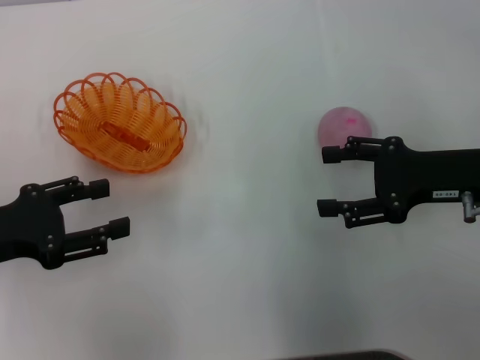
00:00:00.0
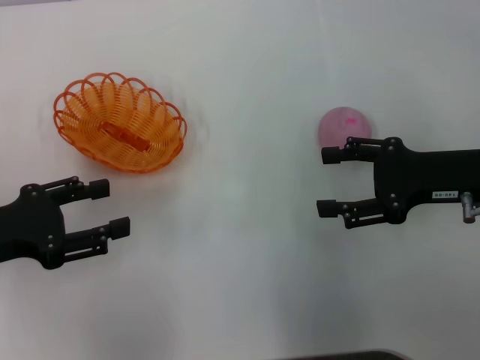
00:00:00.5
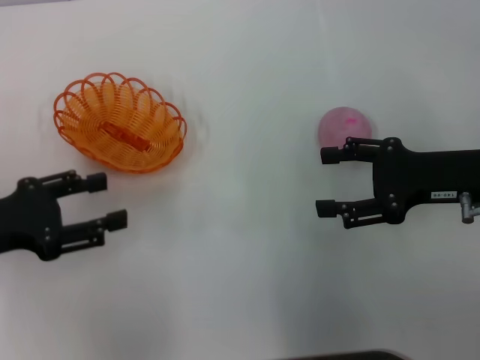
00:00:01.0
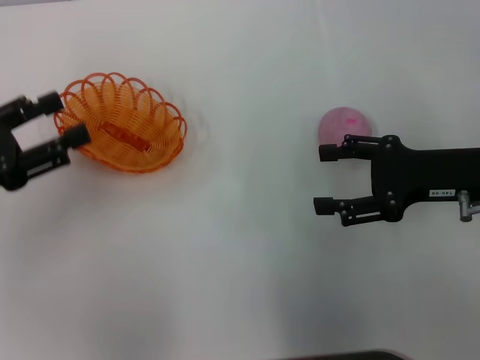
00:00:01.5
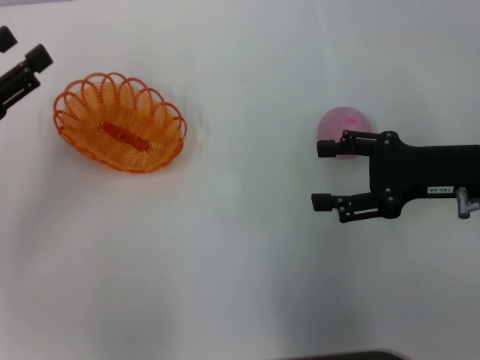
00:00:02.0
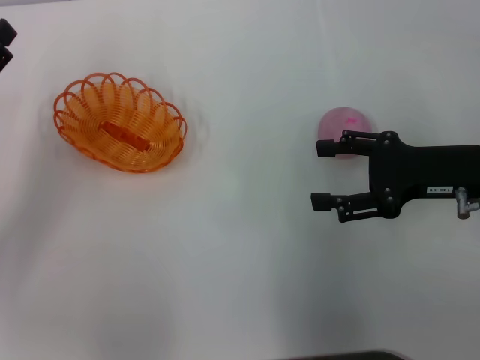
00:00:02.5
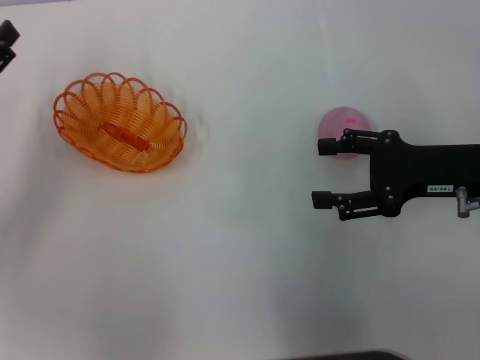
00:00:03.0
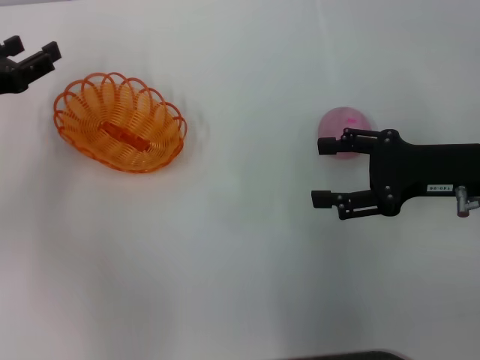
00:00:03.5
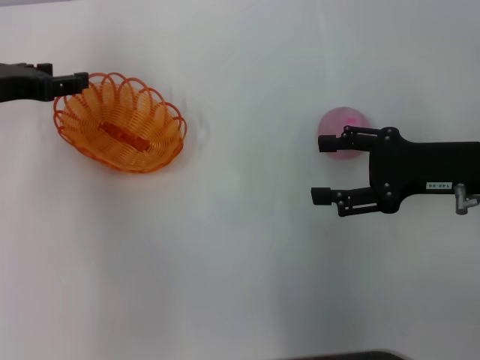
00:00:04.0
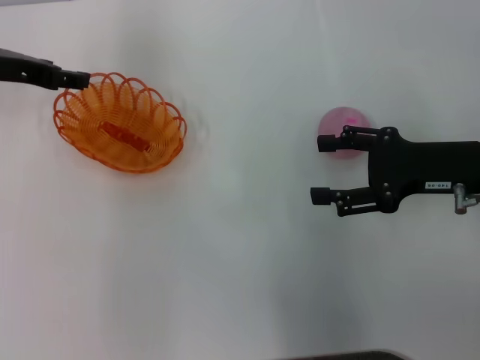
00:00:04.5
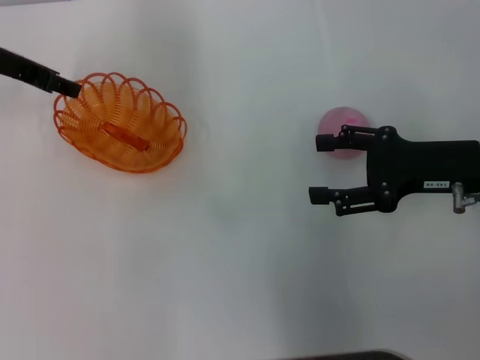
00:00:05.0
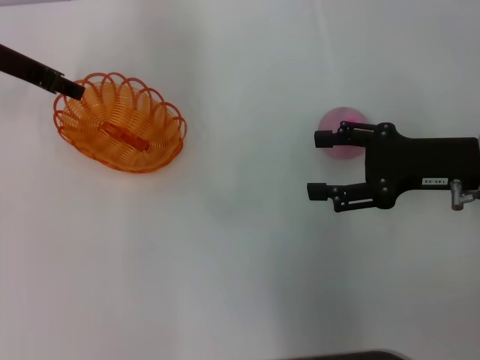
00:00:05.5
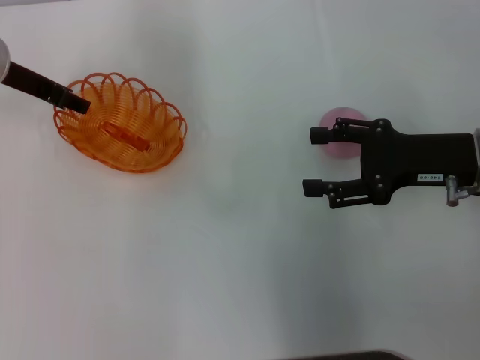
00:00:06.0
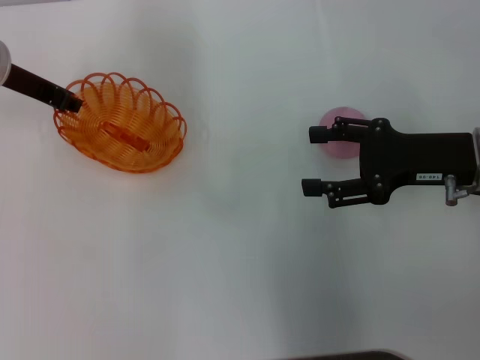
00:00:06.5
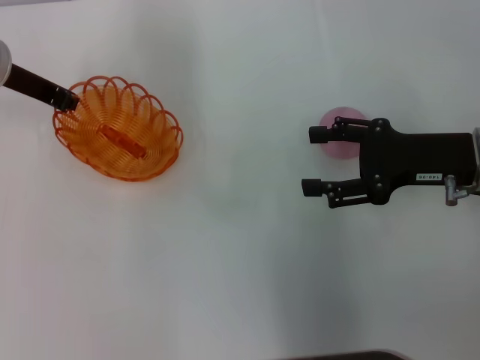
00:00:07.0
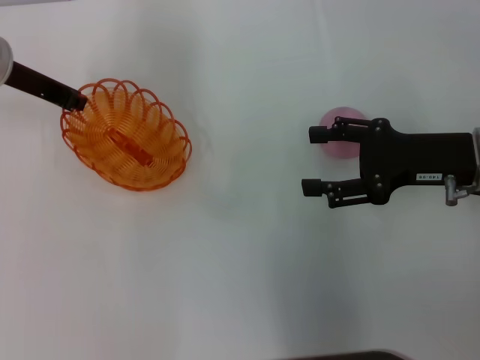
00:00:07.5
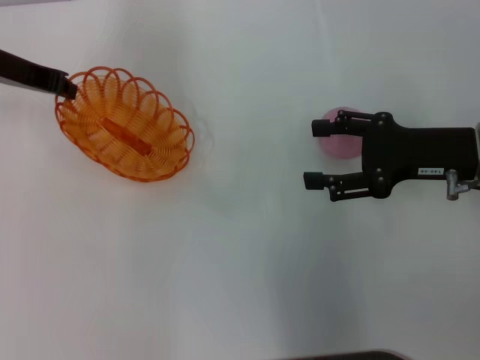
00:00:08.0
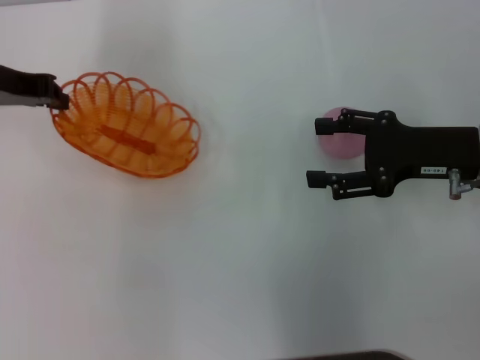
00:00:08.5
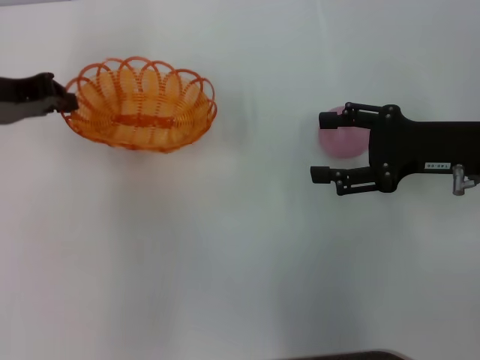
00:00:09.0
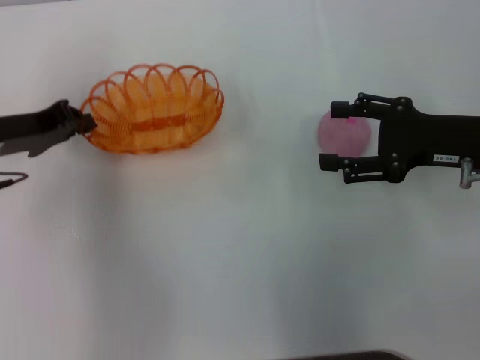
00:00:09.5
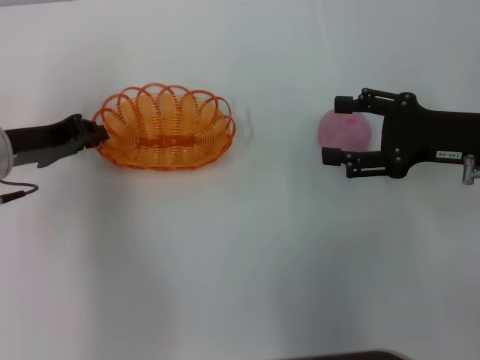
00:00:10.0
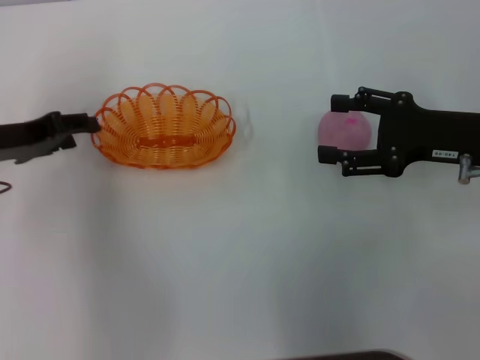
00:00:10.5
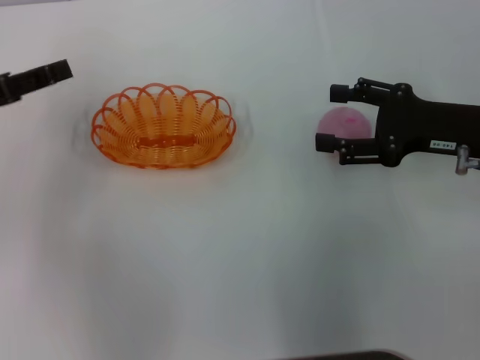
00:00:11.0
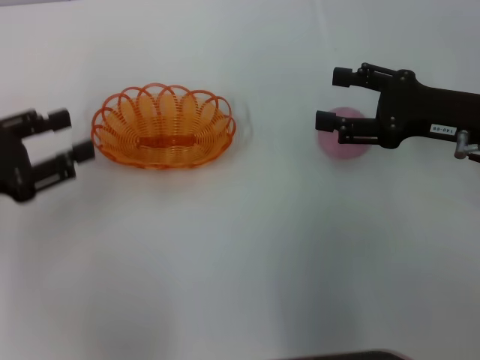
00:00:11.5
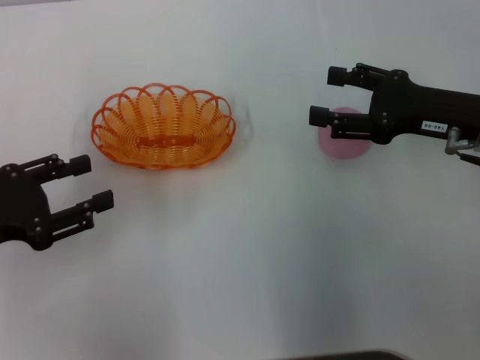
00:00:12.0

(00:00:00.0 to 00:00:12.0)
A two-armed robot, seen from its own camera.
Step, 00:00:00.0 - 00:00:08.0: Pick up the basket with the left gripper.
Step, 00:00:08.5 - 00:00:10.5: Place the basket in the center of view with the left gripper.
00:00:02.0 - 00:00:04.0: The left gripper is displaced forward by some 10 cm.
00:00:04.0 - 00:00:06.0: The left gripper heads forward, covering approximately 5 cm.
00:00:06.0 - 00:00:08.0: The left gripper closes.
00:00:08.0 - 00:00:10.0: The left gripper heads backward and downward, covering some 10 cm.
00:00:10.0 - 00:00:12.0: The left gripper moves backward and to the left, approximately 10 cm, and opens up.

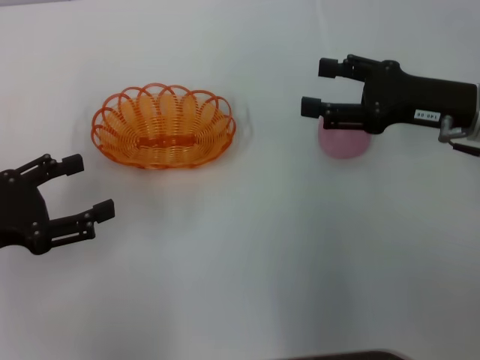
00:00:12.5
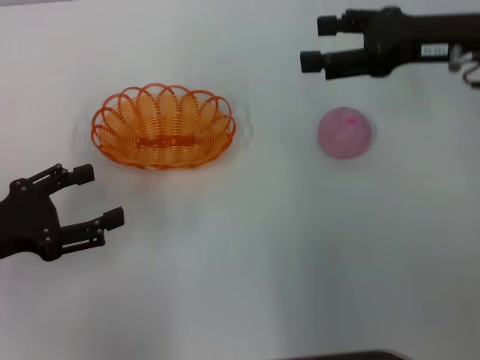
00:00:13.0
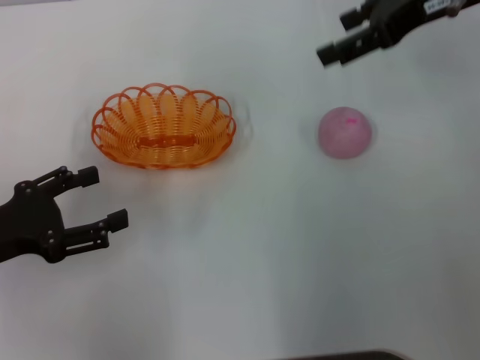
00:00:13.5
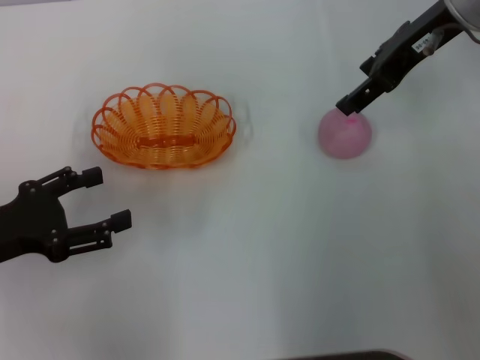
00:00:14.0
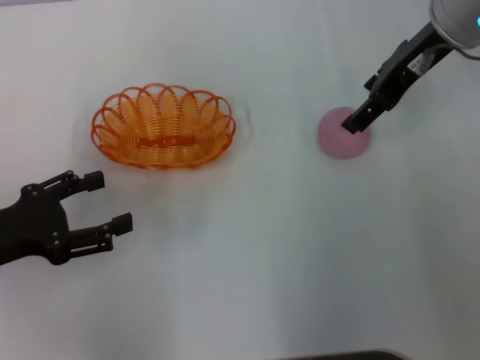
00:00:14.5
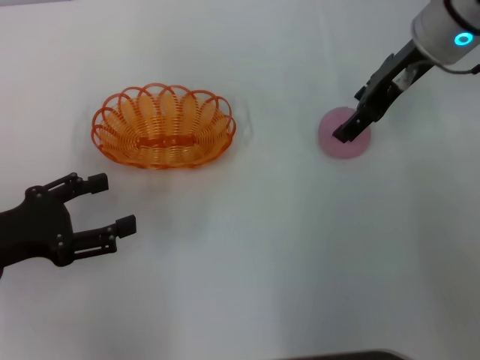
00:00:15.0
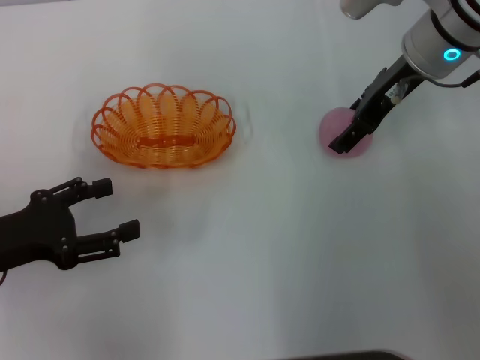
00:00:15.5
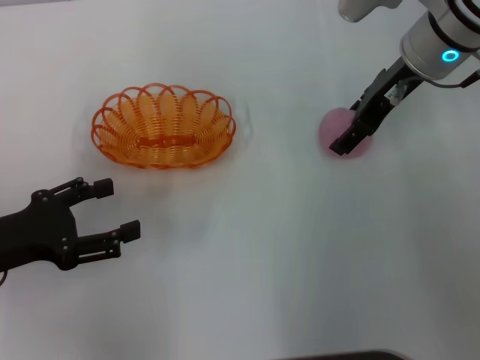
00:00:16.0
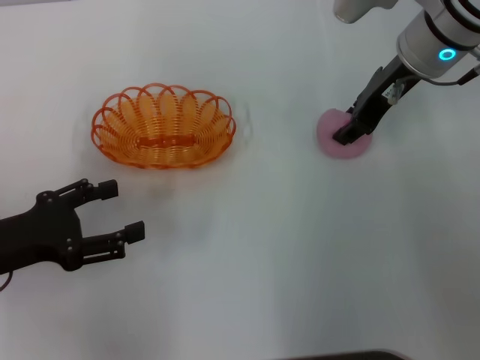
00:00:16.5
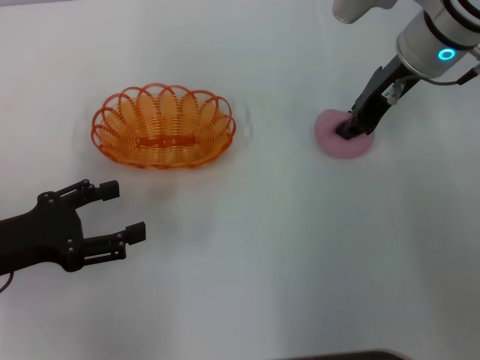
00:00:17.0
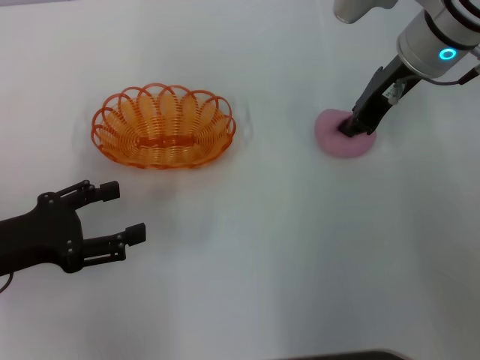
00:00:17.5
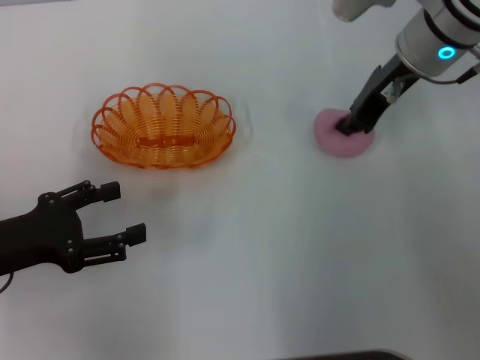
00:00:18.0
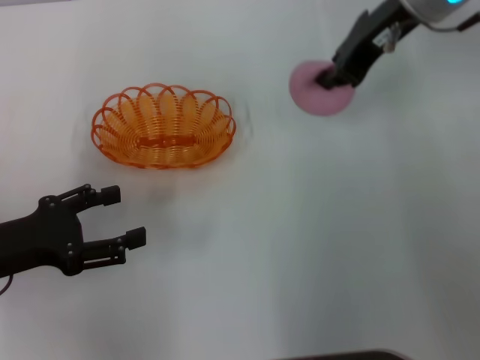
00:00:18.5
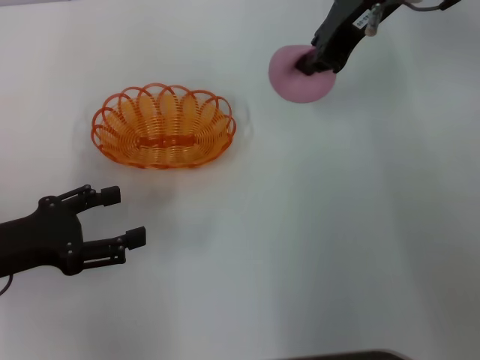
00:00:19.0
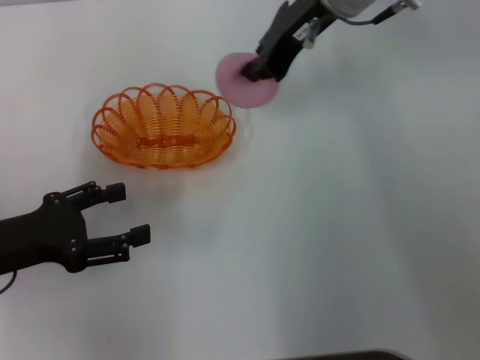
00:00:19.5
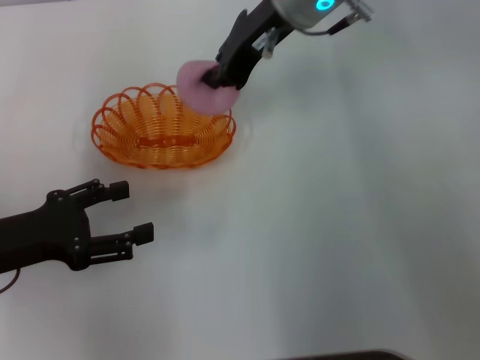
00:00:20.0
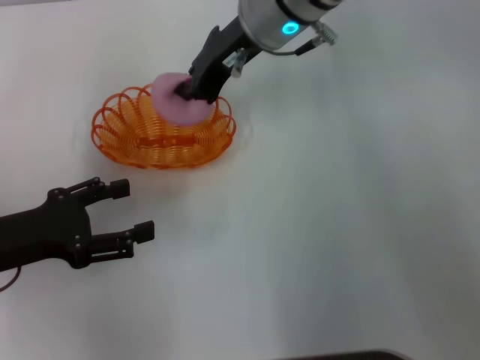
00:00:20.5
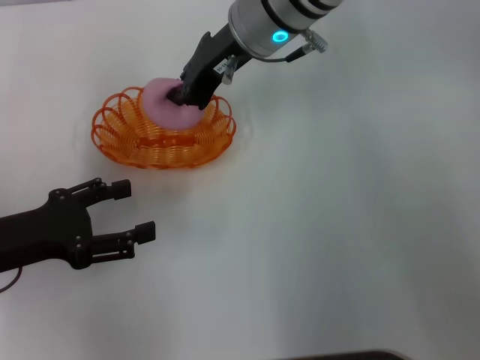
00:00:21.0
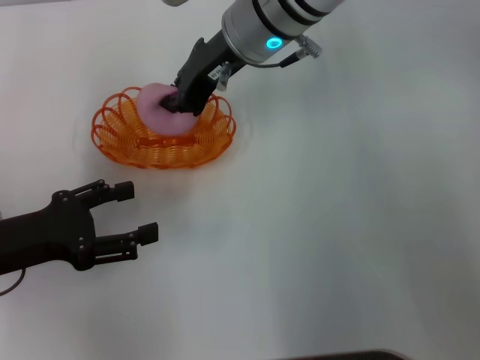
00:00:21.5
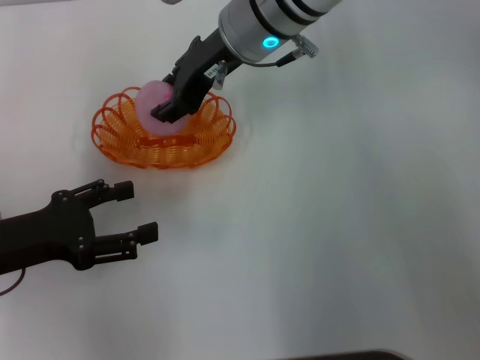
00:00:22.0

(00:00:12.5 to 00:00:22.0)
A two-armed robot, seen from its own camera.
Step, 00:00:12.5 - 00:00:18.5: Pick up the peach with the right gripper.
00:00:12.5 - 00:00:14.5: The right gripper travels upward, forward and to the left by about 15 cm.
00:00:14.5 - 00:00:16.5: The right gripper closes up.
00:00:16.5 - 00:00:18.0: The right gripper closes up.
00:00:18.0 - 00:00:20.0: The right gripper travels to the left by approximately 10 cm.
00:00:20.0 - 00:00:22.0: The right gripper opens its fingers.

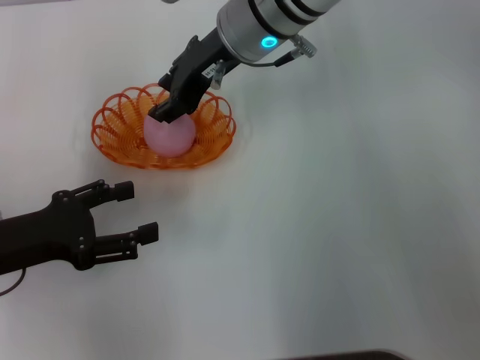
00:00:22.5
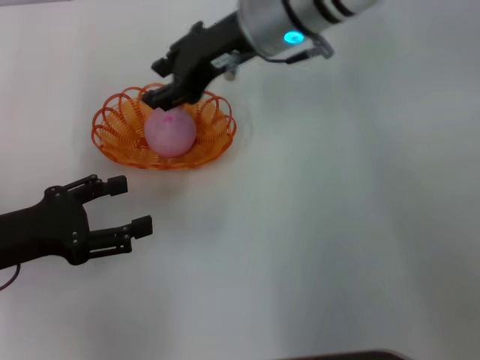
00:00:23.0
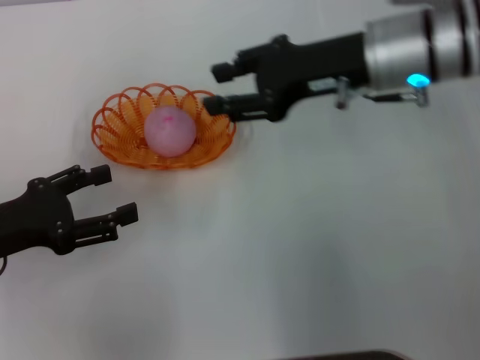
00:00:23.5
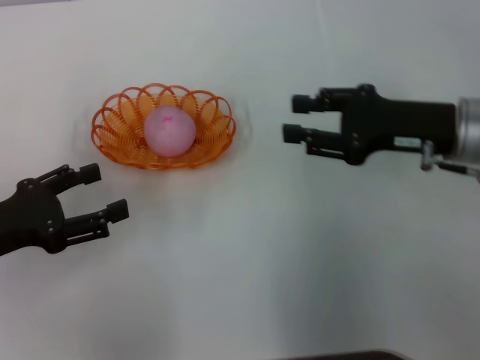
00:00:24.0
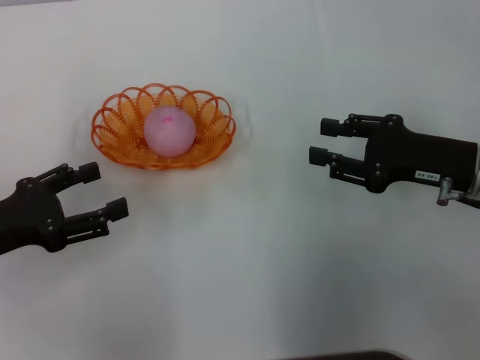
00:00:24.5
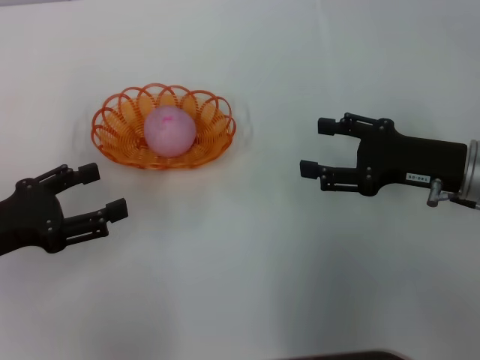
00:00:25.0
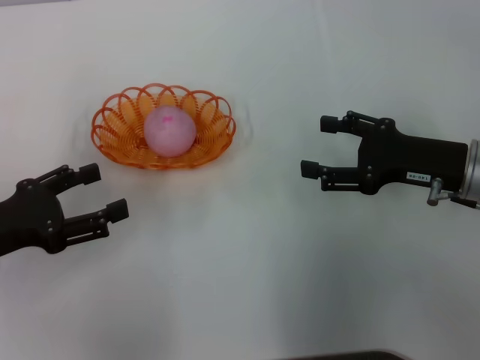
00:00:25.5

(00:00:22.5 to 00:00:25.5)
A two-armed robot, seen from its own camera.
00:00:22.5 - 00:00:24.0: The right gripper is displaced to the right and backward by roughly 25 cm.
00:00:24.0 - 00:00:25.5: The right gripper opens.

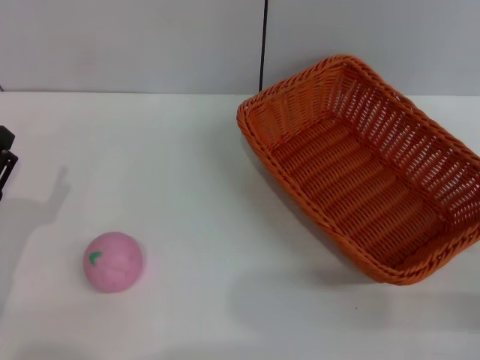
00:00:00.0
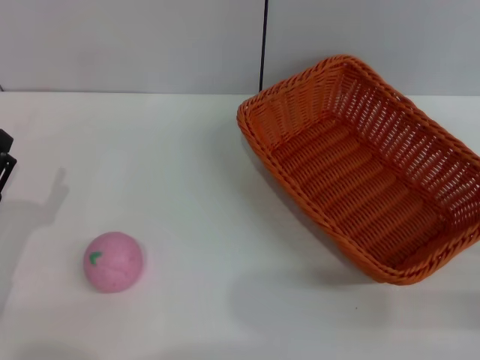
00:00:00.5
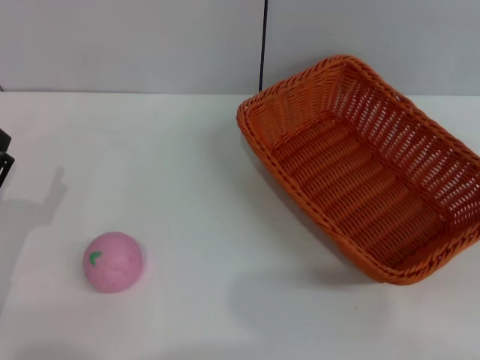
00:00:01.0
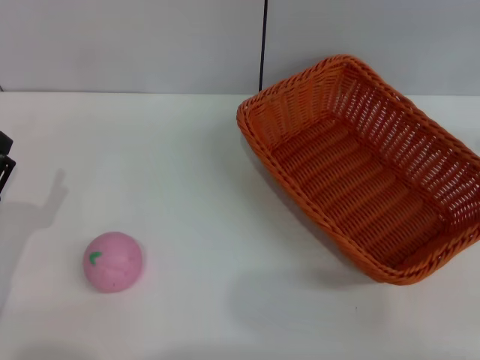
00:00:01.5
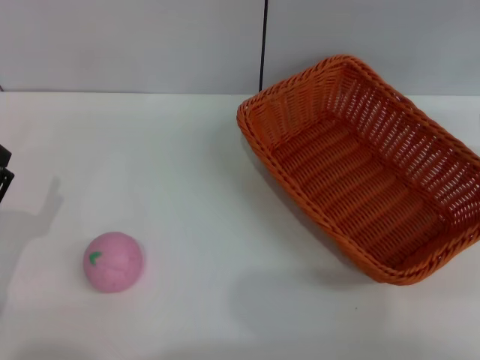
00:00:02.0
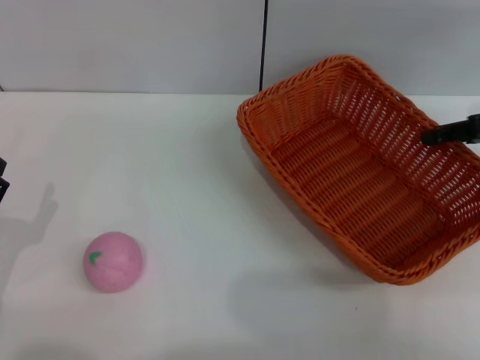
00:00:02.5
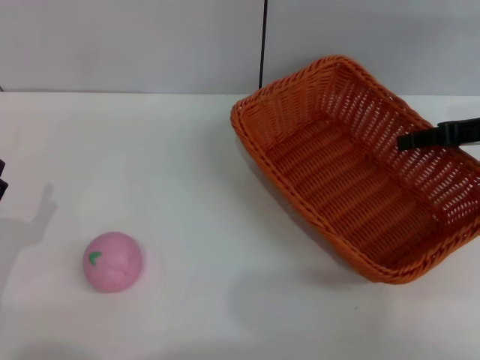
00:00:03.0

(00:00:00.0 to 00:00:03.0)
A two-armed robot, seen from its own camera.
00:00:00.0 - 00:00:01.5: The right gripper moves upward, forward and to the right, approximately 25 cm.
00:00:01.5 - 00:00:03.0: The right gripper travels to the left, downward and forward by approximately 15 cm.
